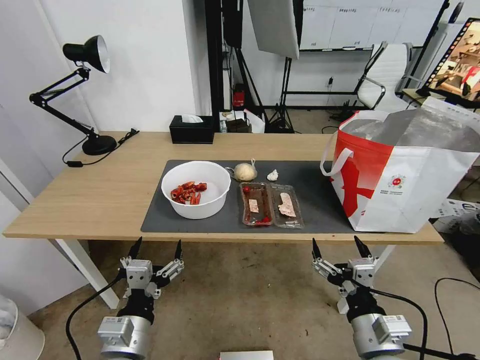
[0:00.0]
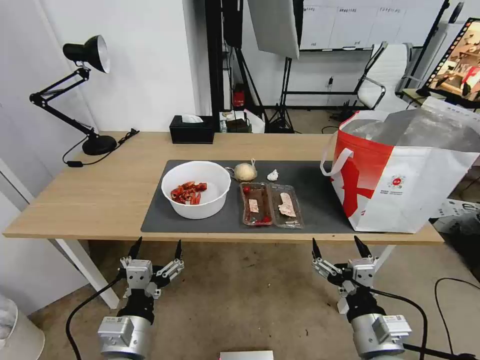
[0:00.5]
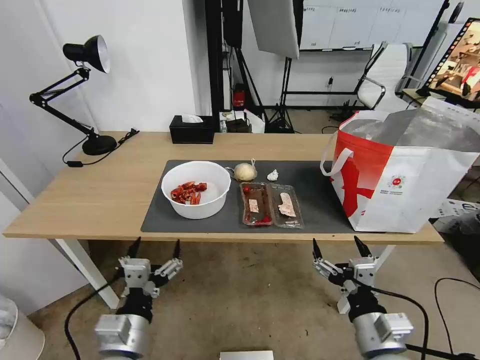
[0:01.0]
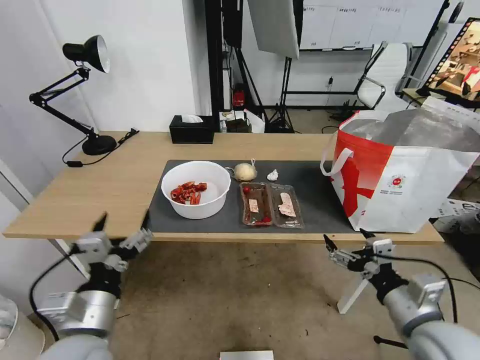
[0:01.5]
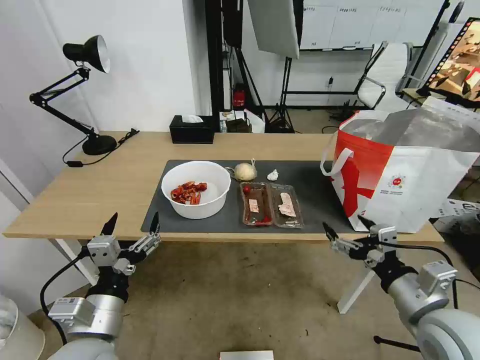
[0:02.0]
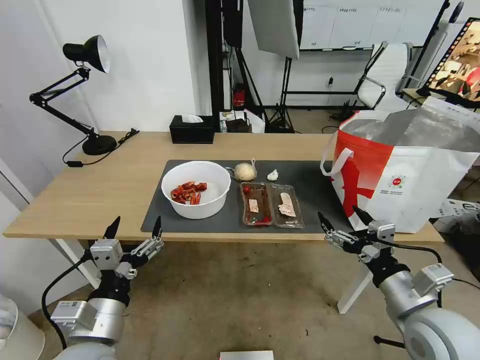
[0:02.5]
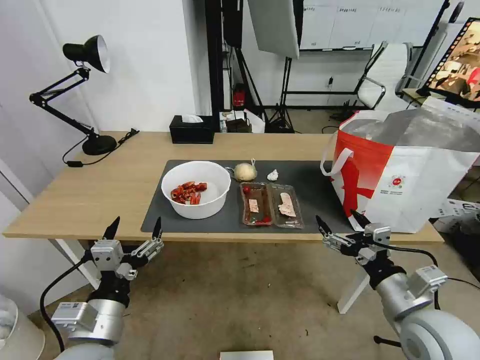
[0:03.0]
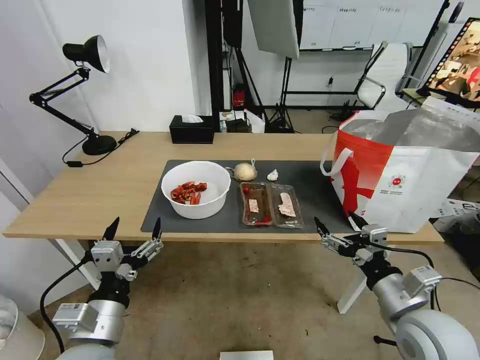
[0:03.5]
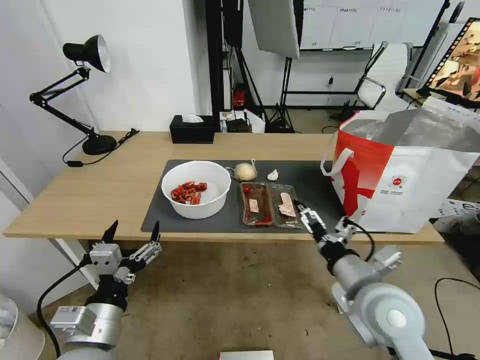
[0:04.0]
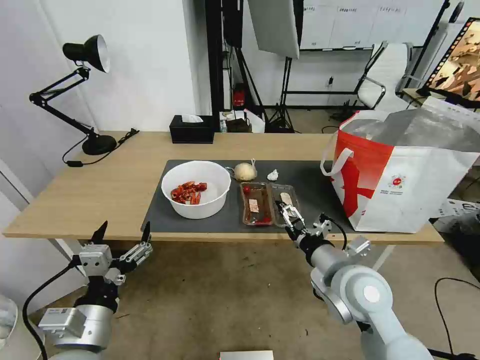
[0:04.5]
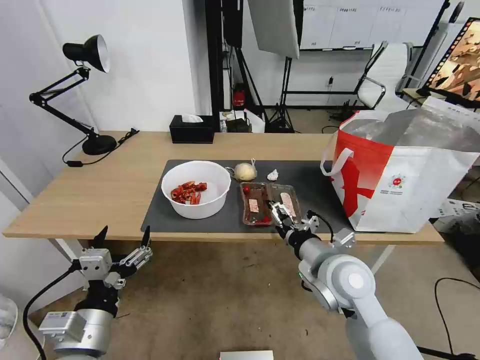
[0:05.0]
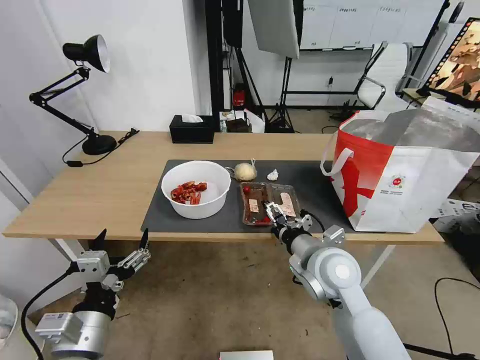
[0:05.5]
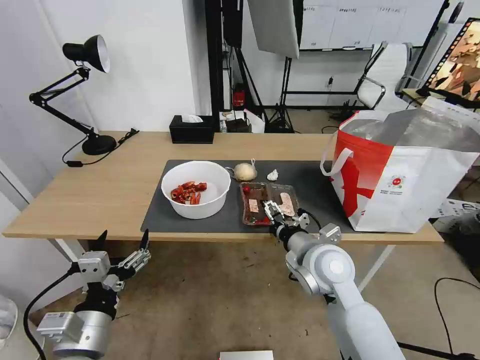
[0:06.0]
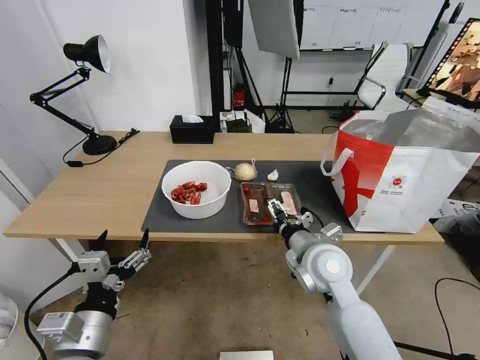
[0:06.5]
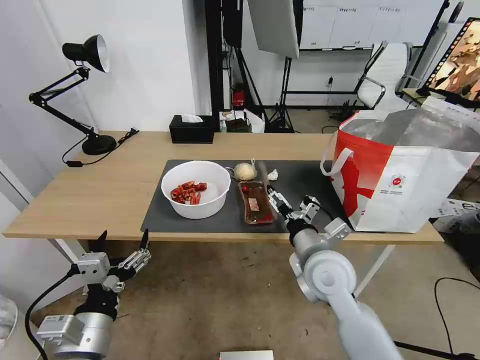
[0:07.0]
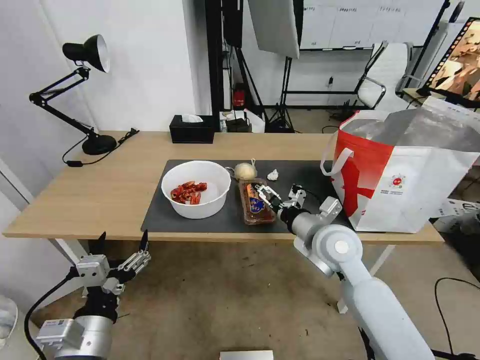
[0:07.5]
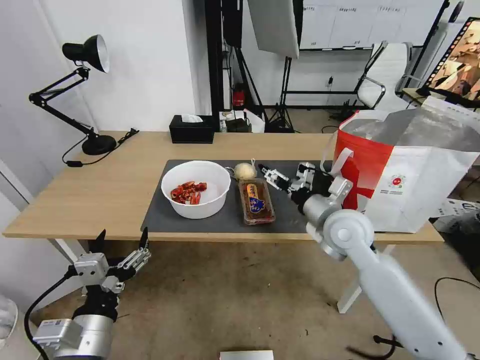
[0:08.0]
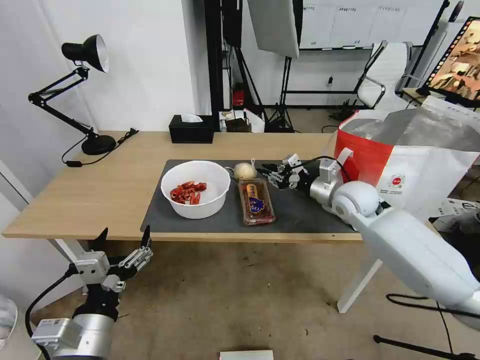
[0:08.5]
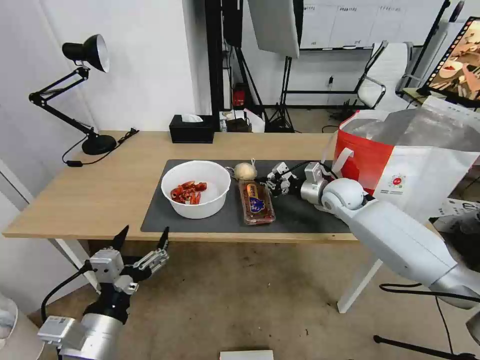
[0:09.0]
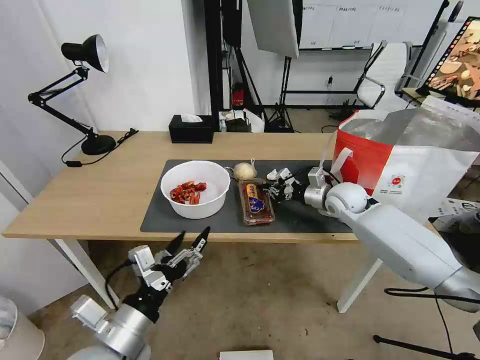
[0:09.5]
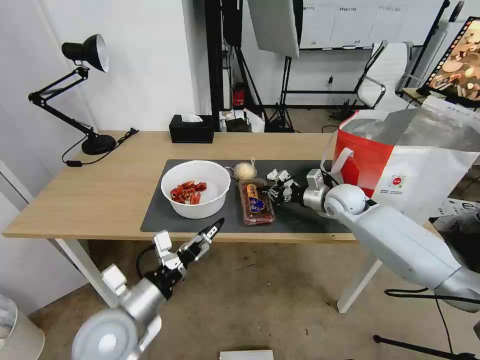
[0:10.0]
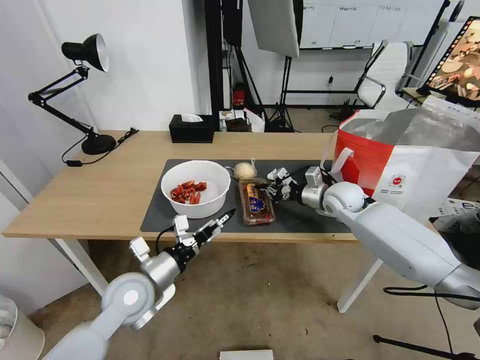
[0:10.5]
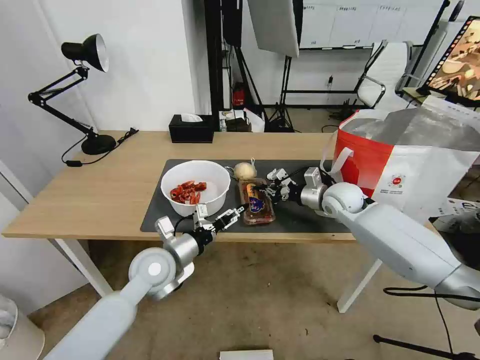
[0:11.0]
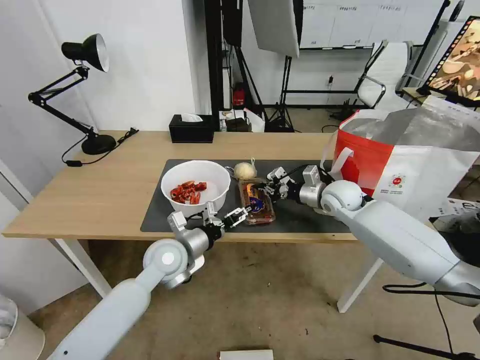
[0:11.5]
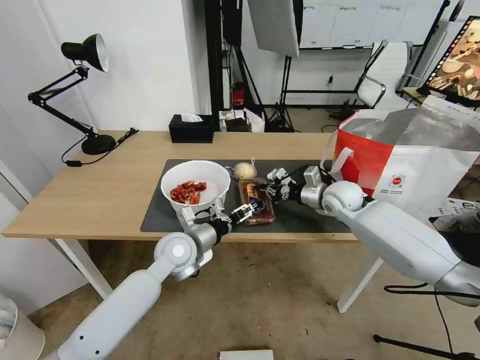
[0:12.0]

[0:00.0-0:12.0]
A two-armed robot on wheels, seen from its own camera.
Task of the whole recording: Pick up the trash from the table and place it into the takeout bag.
0:02.0 to 0:04.0: The right gripper shifts some 10 cm to the left.
0:04.0 to 0:06.0: The right gripper is displaced forward and to the left by about 10 cm.
0:06.0 to 0:08.0: The right gripper moves forward, some 5 cm.
0:08.0 to 0:10.0: The left gripper goes approximately 10 cm forward. Meanwhile the right gripper heads forward, to the right and downward, covering roughly 15 cm, and closes.
0:10.0 to 0:12.0: The left gripper shifts approximately 20 cm forward and to the right.

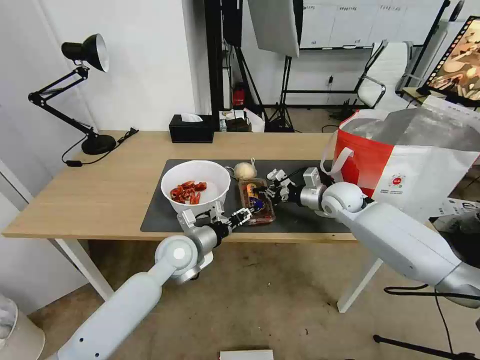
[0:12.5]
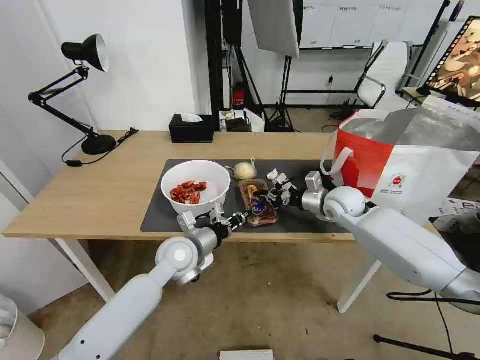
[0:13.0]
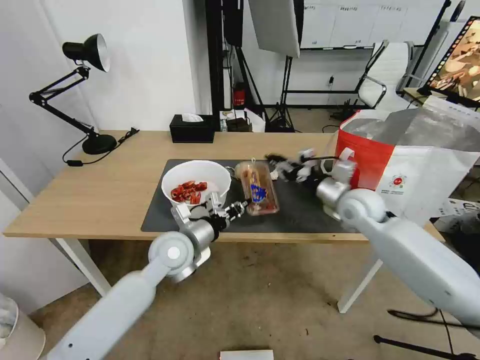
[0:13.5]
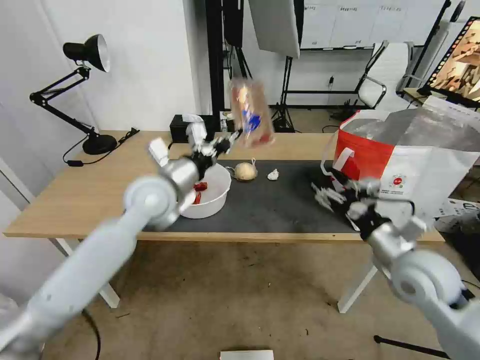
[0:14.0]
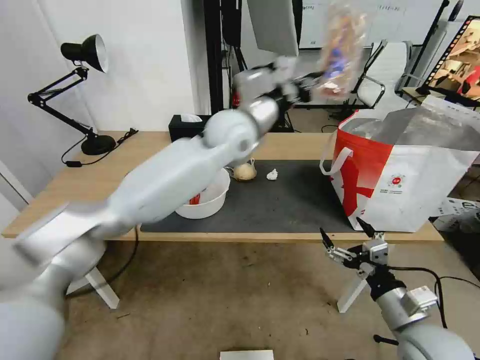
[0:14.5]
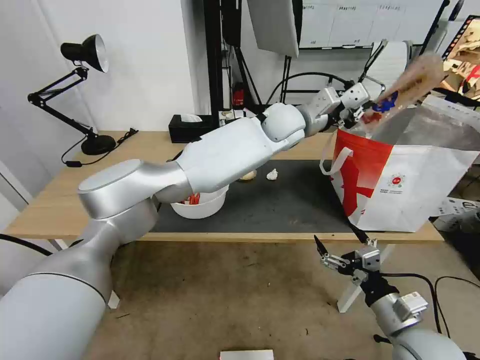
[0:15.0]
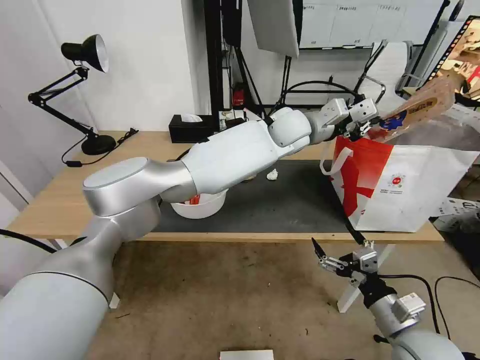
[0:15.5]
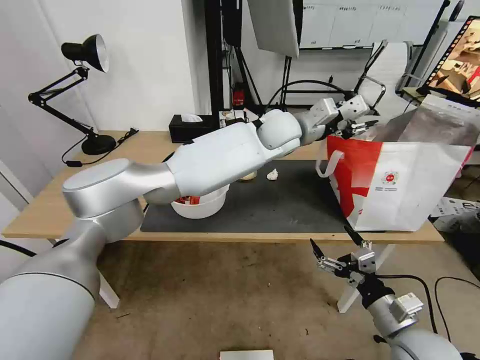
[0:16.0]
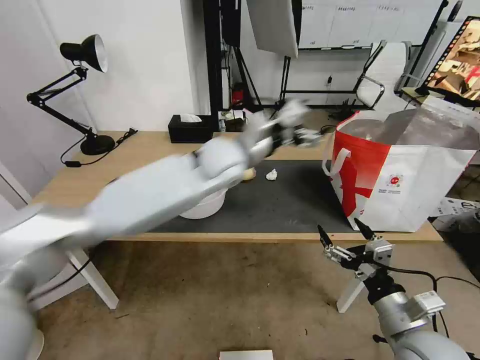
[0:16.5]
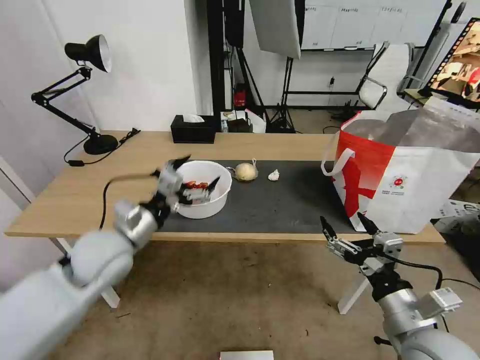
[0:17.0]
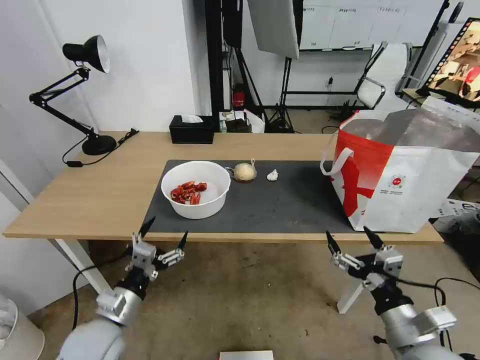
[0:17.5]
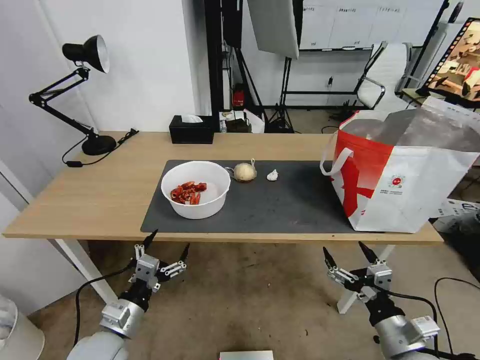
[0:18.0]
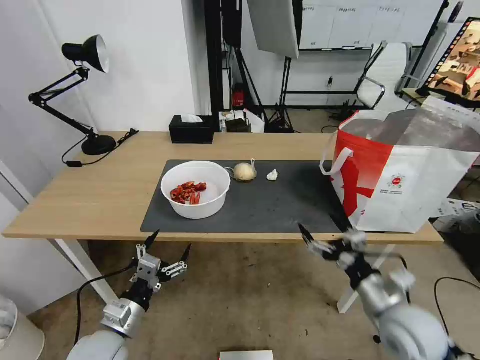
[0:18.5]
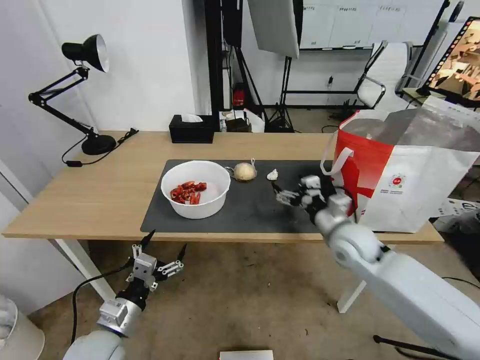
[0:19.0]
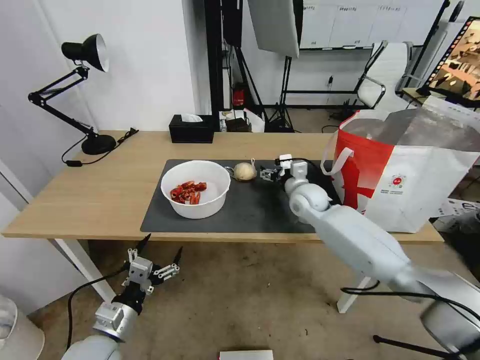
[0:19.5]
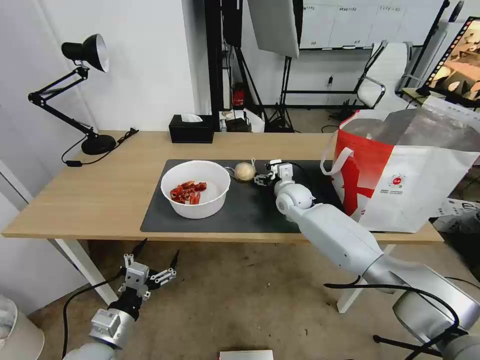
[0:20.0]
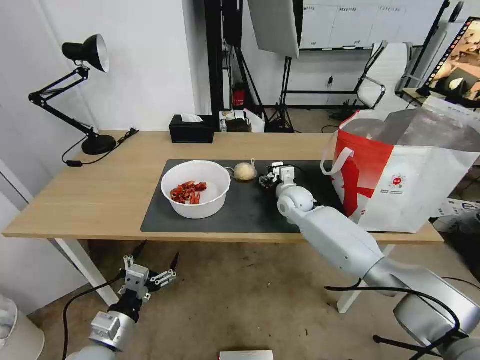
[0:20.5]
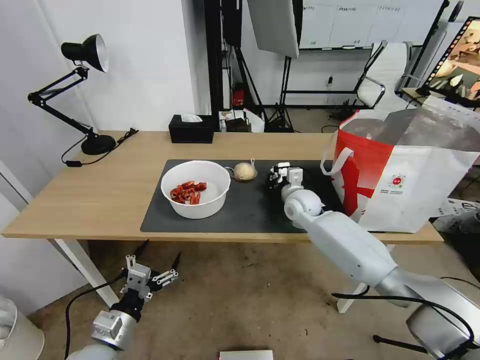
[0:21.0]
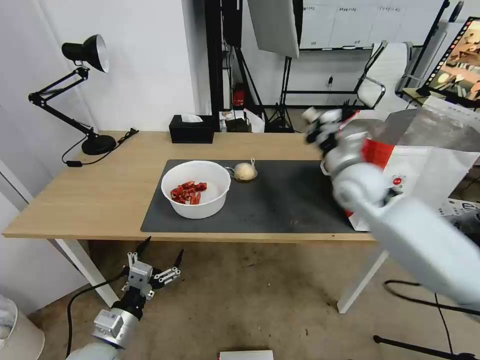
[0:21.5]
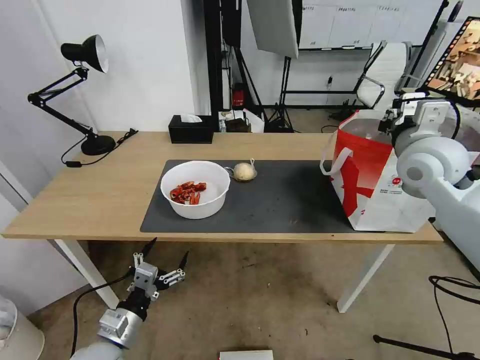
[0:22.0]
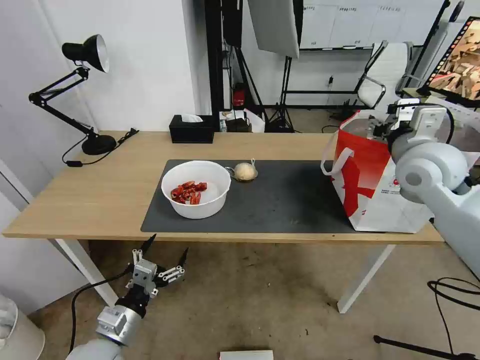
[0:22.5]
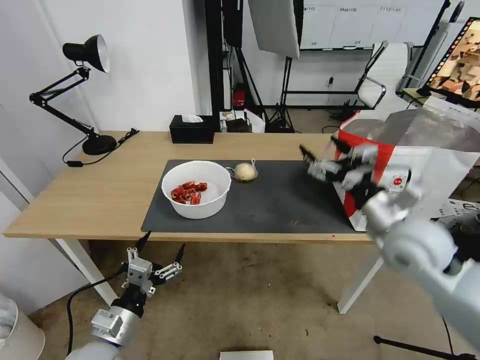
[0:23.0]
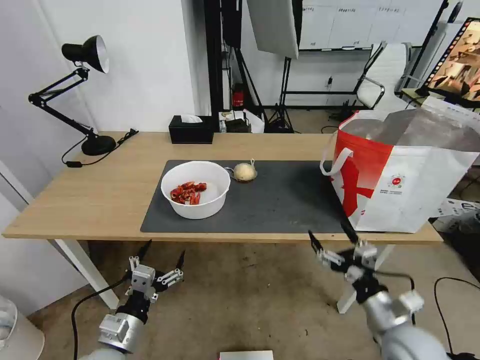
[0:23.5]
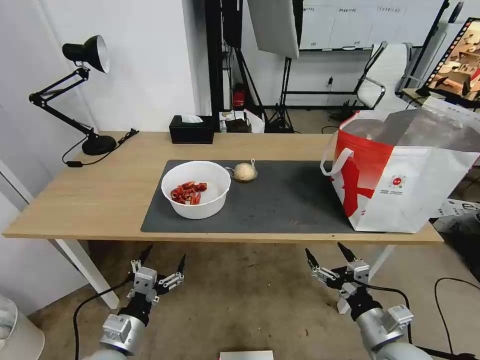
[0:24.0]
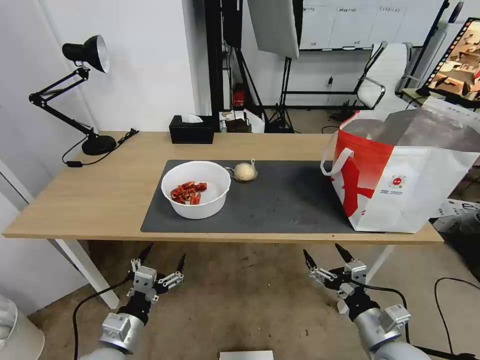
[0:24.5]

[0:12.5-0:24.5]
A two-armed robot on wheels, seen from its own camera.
Task of the whole recording: Pick up the trash from the table and place it into the takeout bag.
0:12.5 to 0:14.5: The right gripper goes some 35 cm backward, and opens. The left gripper travels upward, to the right and forward by about 30 cm, and closes up.
0:14.5 to 0:16.5: The left gripper moves about 15 cm to the right and comes back, and opens up.
0:16.5 to 0:18.5: The left gripper shifts approximately 50 cm backward, downward and to the left.
0:18.5 to 0:20.5: The right gripper shifts roughly 40 cm forward and to the left.
0:20.5 to 0:22.5: The right gripper is displaced upward, to the right and backward by roughly 30 cm, and closes, then opens again.
0:22.5 to 0:24.5: The right gripper goes some 40 cm downward and backward, and opens.

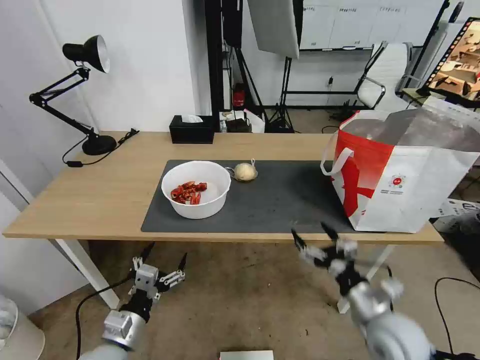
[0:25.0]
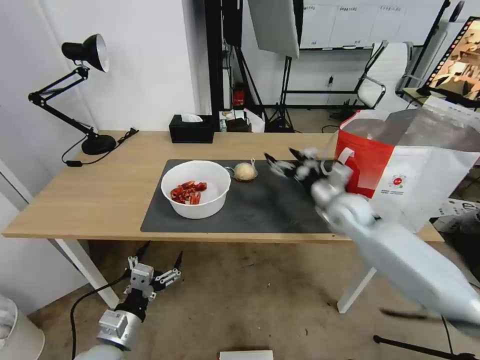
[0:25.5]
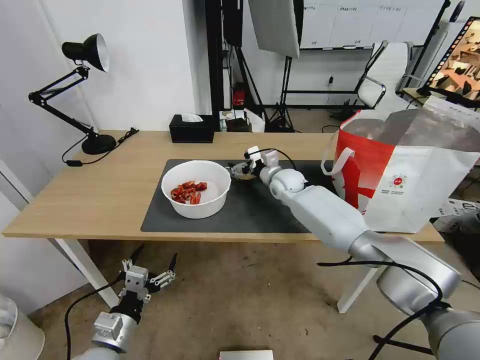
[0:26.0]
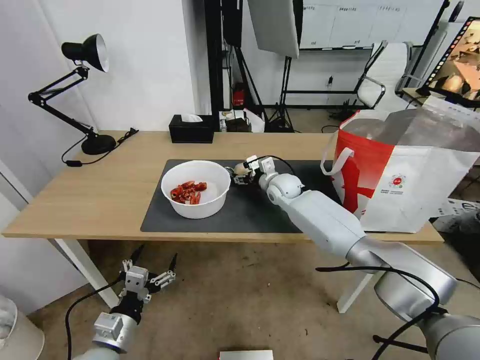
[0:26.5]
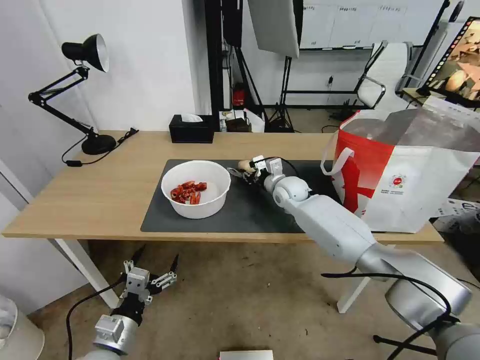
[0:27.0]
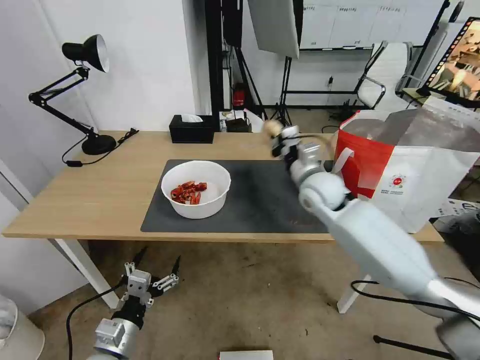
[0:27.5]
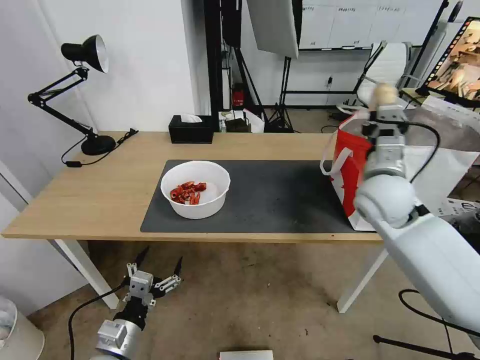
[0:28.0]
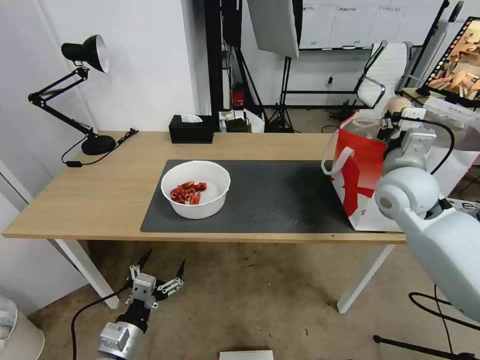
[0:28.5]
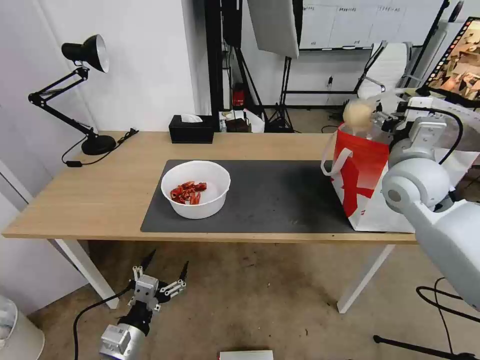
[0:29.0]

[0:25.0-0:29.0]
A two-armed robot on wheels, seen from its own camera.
Task of the whole recording: Pick up the trash from the table and place it into the takeout bag.
0:25.0 to 0:27.0: The right gripper heads forward, covering approximately 35 cm, and closes.
0:27.0 to 0:29.0: The right gripper travels upward, to the right and backward by roughly 30 cm, and opens its fingers.
